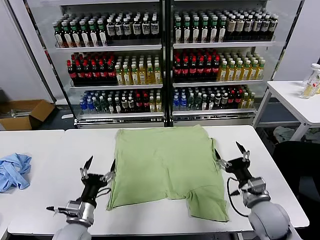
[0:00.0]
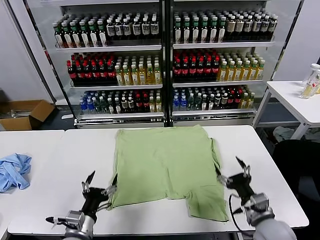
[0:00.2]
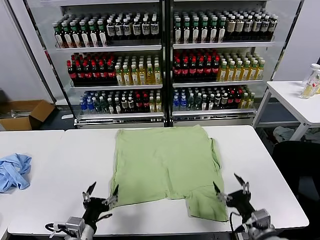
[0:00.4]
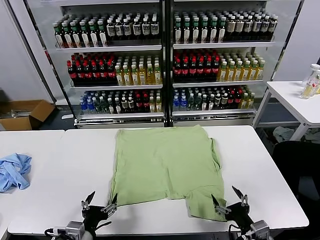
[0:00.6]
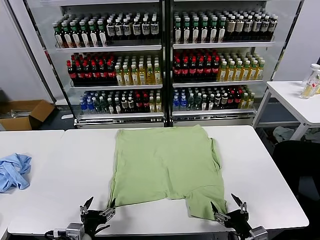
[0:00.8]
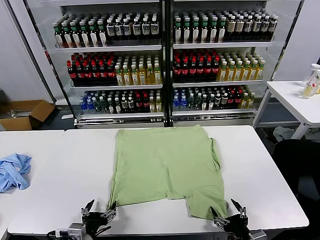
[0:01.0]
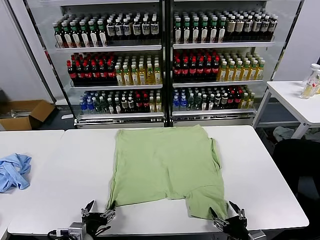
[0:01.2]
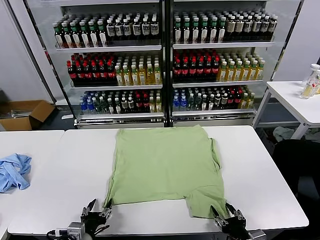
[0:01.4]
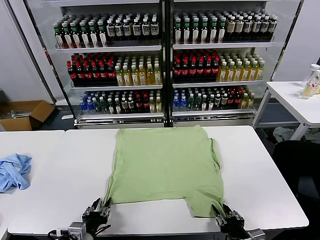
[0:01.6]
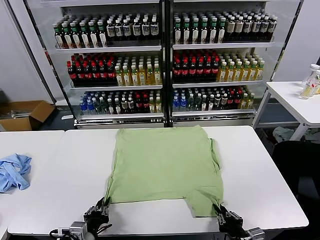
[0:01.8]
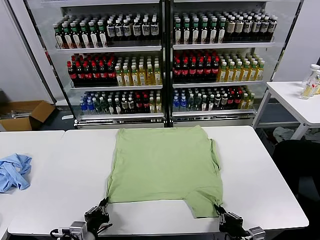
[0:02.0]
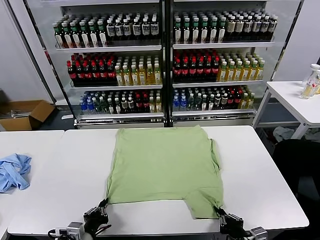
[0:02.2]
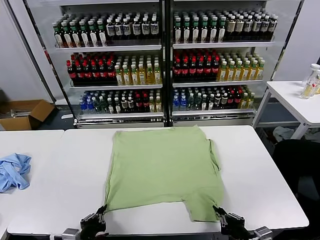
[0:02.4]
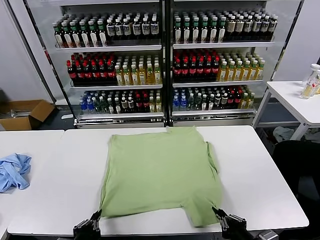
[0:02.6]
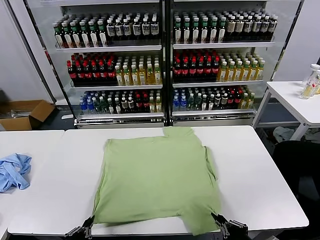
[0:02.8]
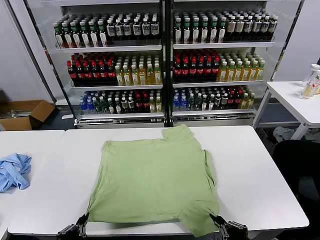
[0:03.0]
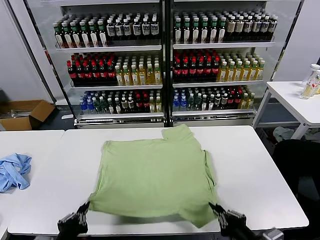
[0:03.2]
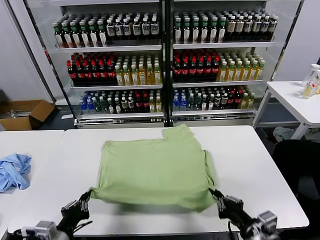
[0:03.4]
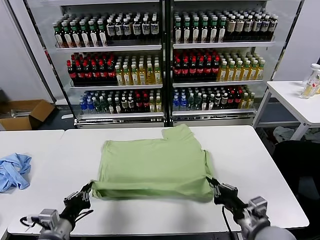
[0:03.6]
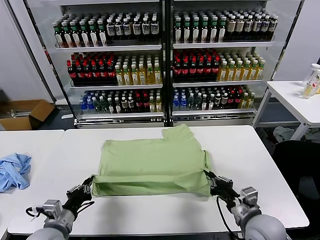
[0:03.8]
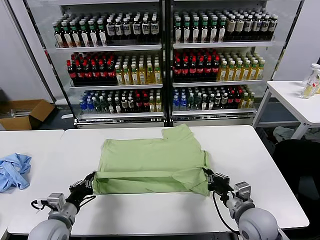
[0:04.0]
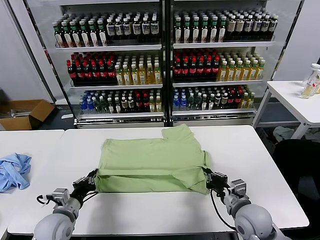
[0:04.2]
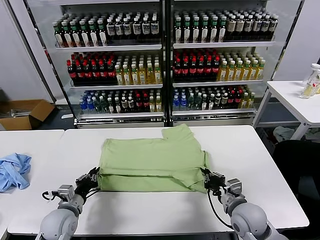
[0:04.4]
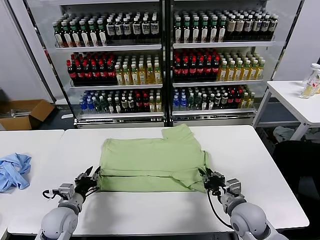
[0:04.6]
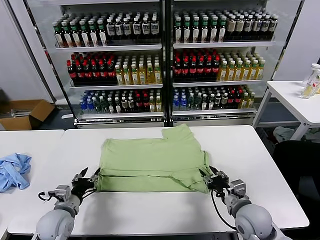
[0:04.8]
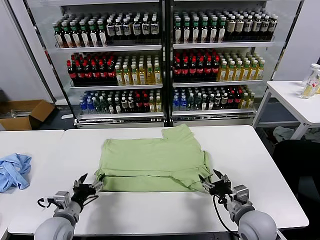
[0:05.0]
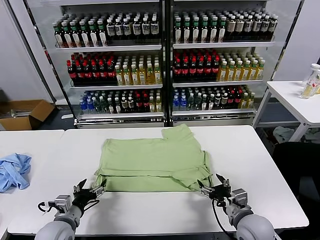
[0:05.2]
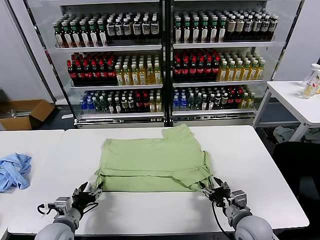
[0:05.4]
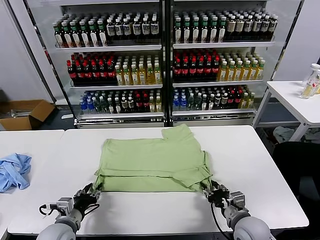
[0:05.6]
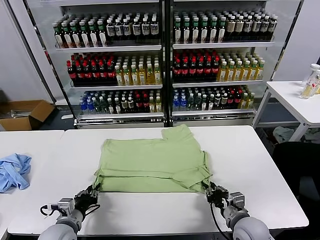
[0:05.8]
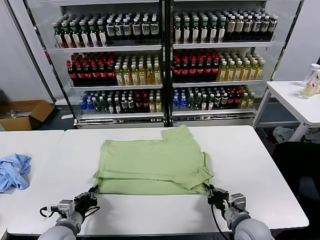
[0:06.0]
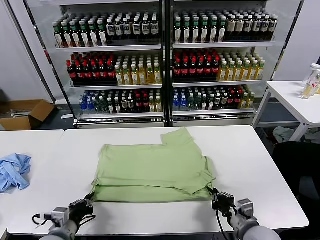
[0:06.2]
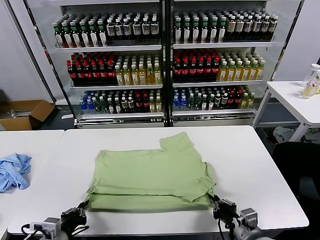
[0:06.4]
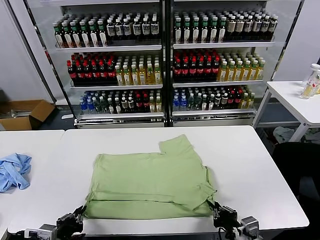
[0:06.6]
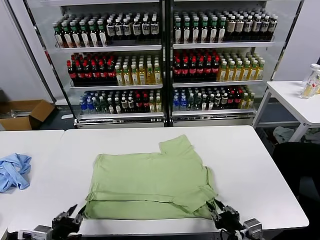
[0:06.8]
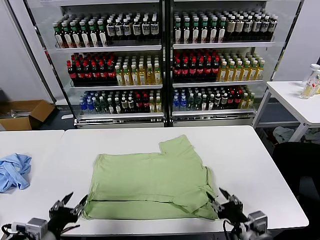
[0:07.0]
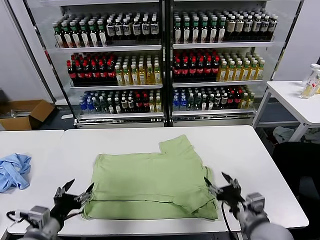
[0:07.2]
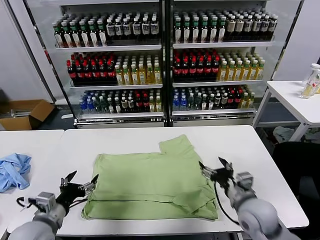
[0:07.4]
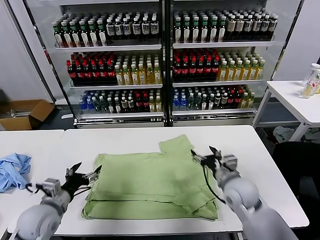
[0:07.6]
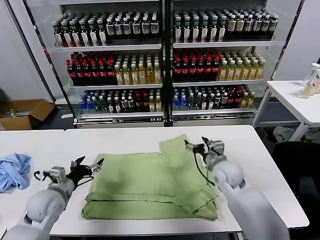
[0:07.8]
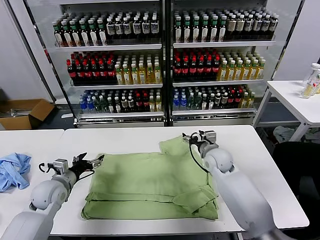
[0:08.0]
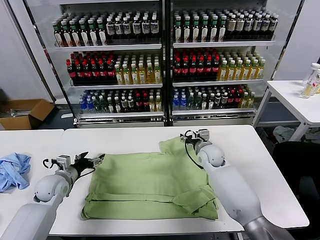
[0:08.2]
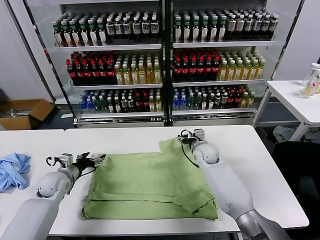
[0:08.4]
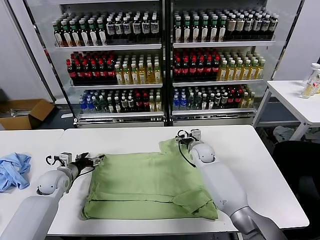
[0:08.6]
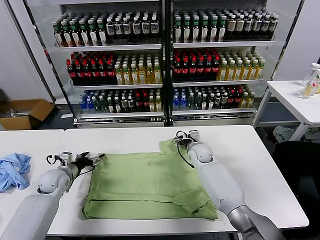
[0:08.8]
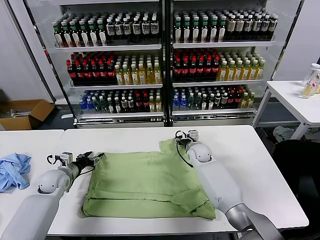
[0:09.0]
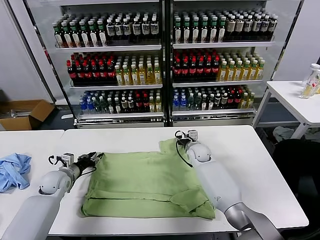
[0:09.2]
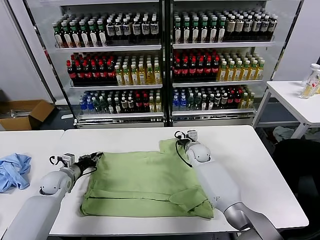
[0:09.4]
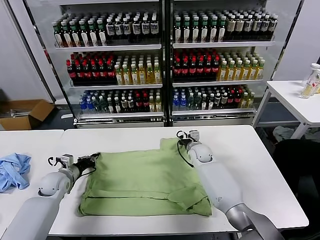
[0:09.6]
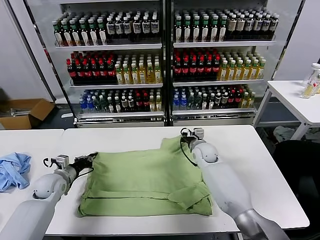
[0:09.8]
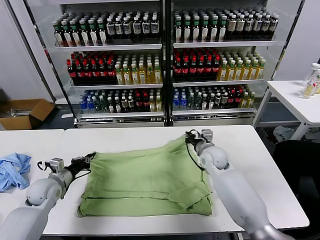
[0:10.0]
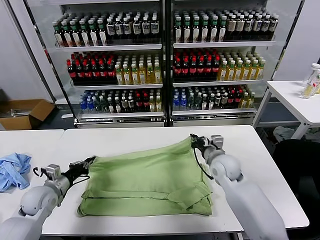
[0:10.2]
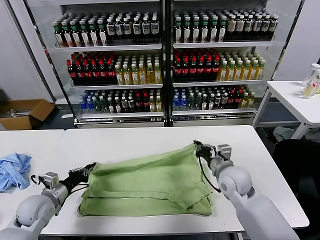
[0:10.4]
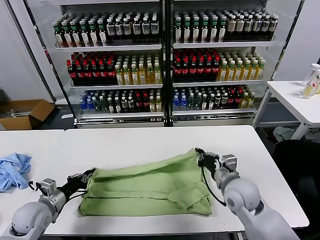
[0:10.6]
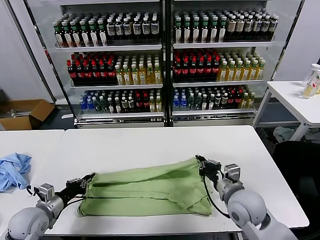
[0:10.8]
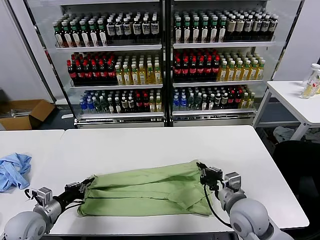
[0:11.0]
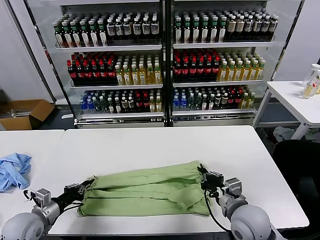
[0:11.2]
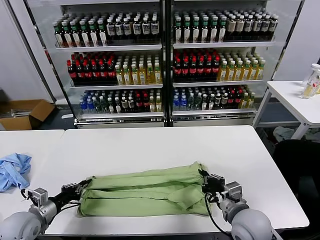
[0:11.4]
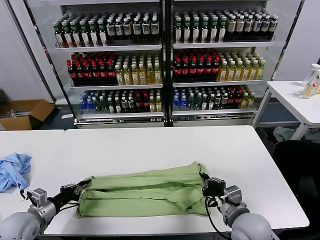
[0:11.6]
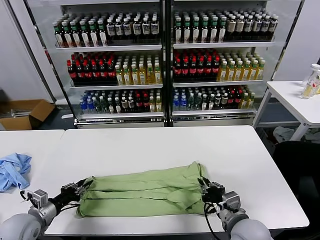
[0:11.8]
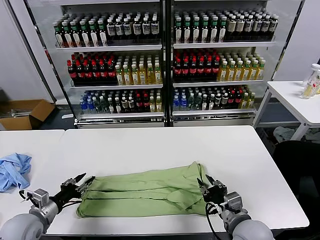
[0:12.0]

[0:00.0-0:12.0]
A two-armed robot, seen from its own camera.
Task of the whole recording: fold and organize the clothes.
Step, 0:00.0 to 0:02.6: use both grippers simultaneously to clamp the lower edge of the clothing fabric.
Step, 0:02.8 to 0:04.8: use both grippers to drag the lower edge of the fabric forward and fold it over the upper edge.
Step, 0:05.0 to 0:06.8: Drag the clothes downward with both gripper.
Step, 0:07.0 to 0:09.6: use both grippers simultaneously to clamp the upper edge of the clothing fabric.
0:01.6 to 0:03.0: The left gripper moves upward and backward, approximately 10 cm, and closes. Meanwhile the right gripper heads upward, covering roughly 10 cm.
0:03.0 to 0:04.4: Both grippers move forward and downward, approximately 20 cm.
0:04.4 to 0:06.0: Both grippers move backward, approximately 5 cm. The left gripper opens and closes again; the right gripper opens, then closes again.
0:06.0 to 0:07.6: The left gripper is displaced forward and upward by approximately 10 cm, and opens up, while the right gripper travels forward by roughly 15 cm, and opens up.
0:07.6 to 0:09.0: Both grippers move forward, downward and to the left, roughly 20 cm.
0:09.0 to 0:10.4: The left gripper heads backward, covering approximately 10 cm, and closes up; the right gripper is displaced backward, upward and to the right by roughly 25 cm, and closes its fingers.
0:10.4 to 0:12.0: The right gripper heads backward, covering roughly 15 cm, and opens its fingers. Meanwhile the left gripper is displaced backward by about 5 cm, and opens its fingers.

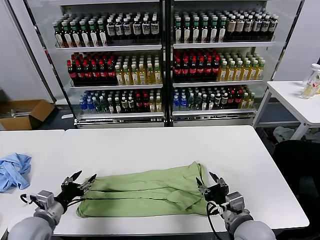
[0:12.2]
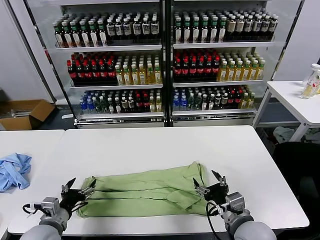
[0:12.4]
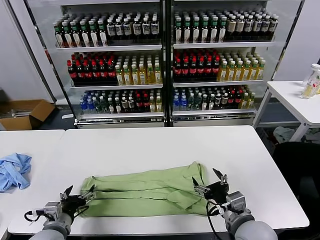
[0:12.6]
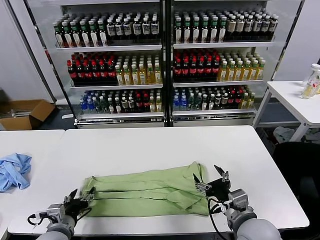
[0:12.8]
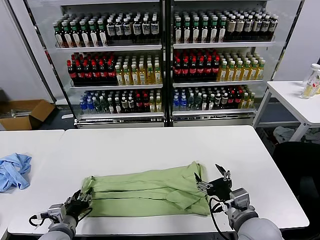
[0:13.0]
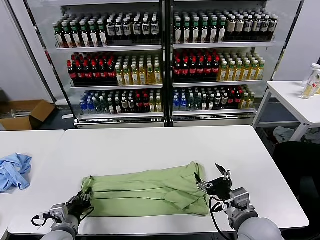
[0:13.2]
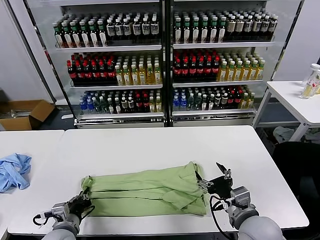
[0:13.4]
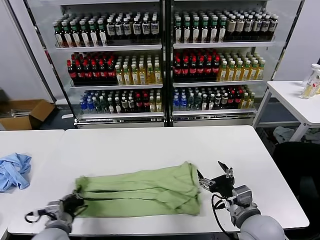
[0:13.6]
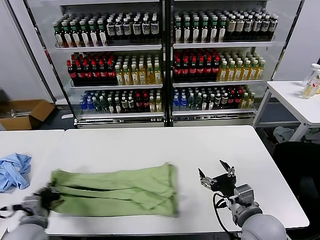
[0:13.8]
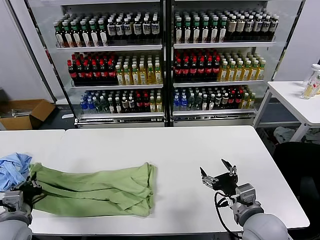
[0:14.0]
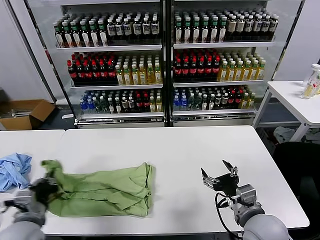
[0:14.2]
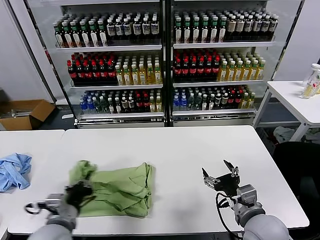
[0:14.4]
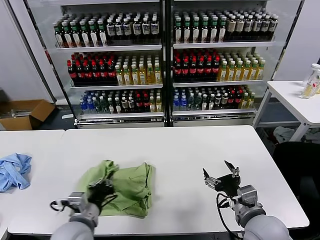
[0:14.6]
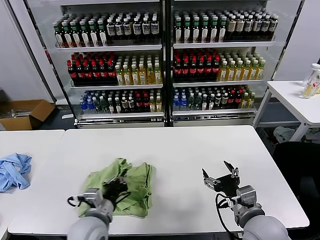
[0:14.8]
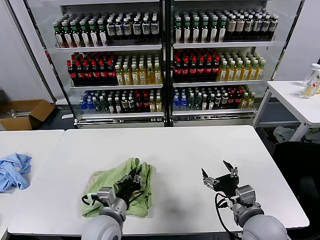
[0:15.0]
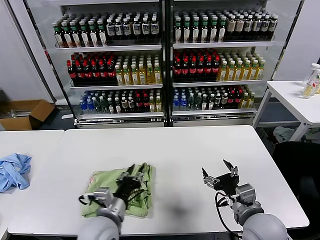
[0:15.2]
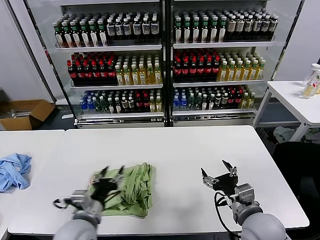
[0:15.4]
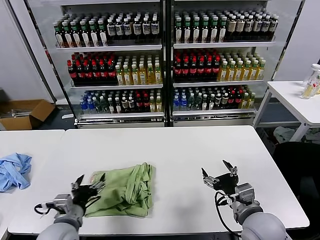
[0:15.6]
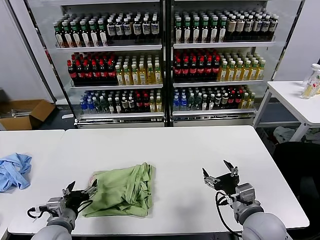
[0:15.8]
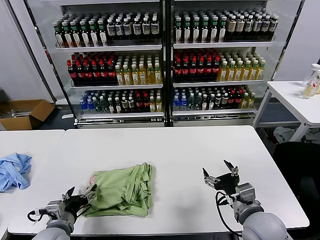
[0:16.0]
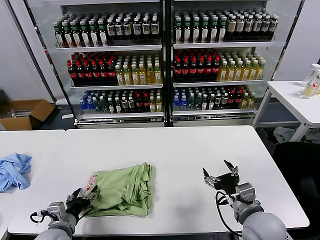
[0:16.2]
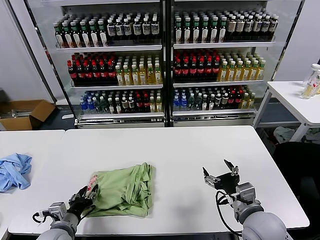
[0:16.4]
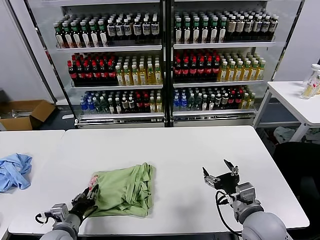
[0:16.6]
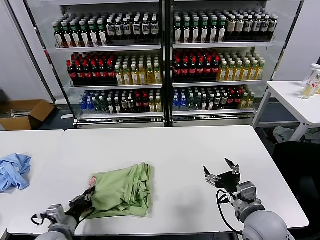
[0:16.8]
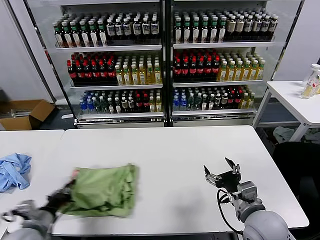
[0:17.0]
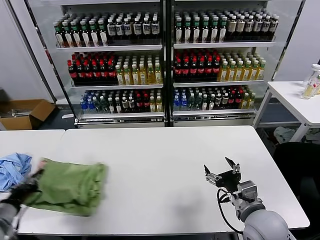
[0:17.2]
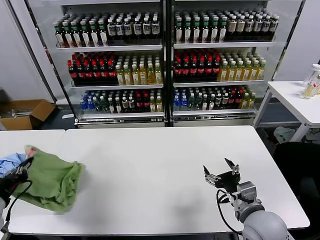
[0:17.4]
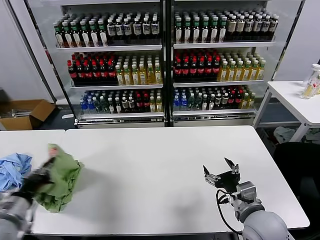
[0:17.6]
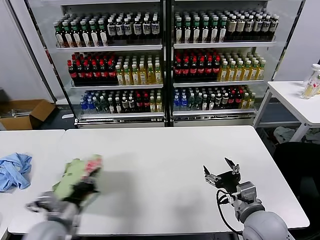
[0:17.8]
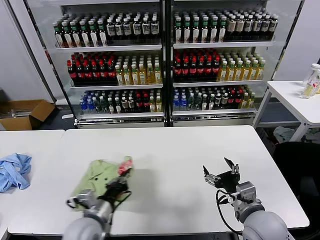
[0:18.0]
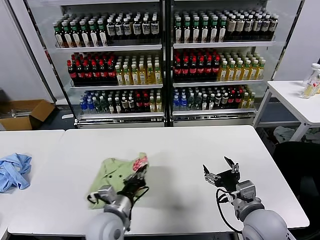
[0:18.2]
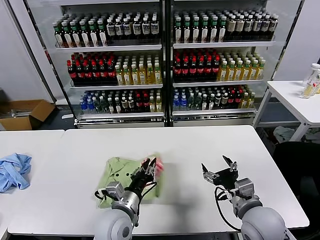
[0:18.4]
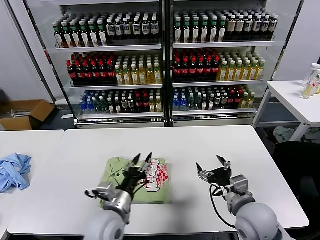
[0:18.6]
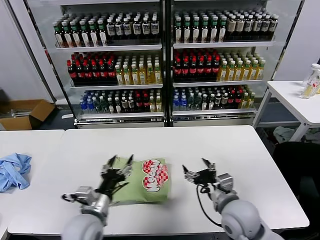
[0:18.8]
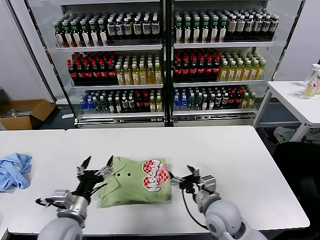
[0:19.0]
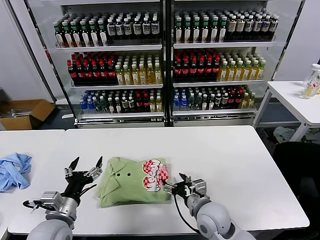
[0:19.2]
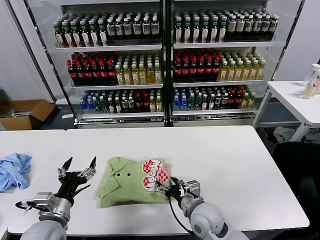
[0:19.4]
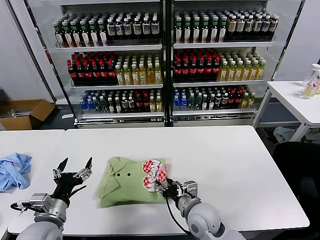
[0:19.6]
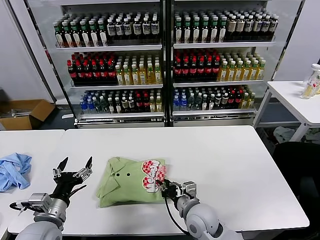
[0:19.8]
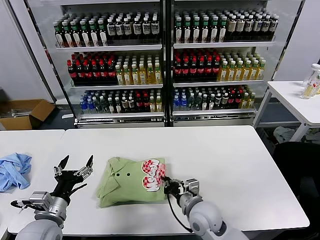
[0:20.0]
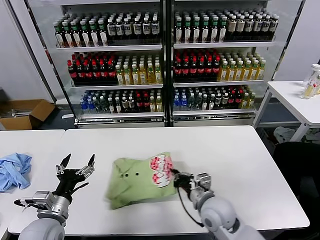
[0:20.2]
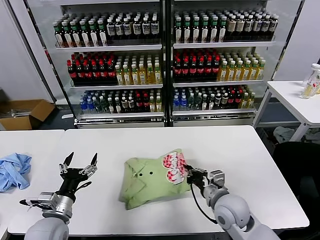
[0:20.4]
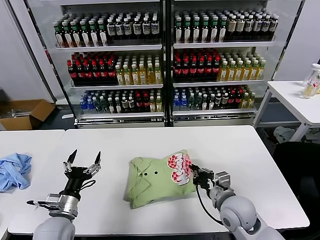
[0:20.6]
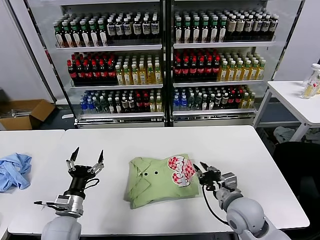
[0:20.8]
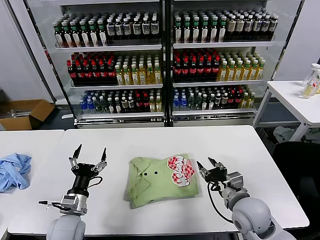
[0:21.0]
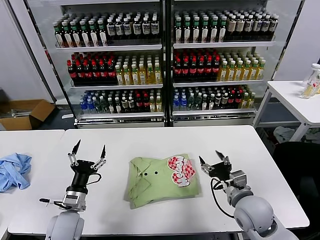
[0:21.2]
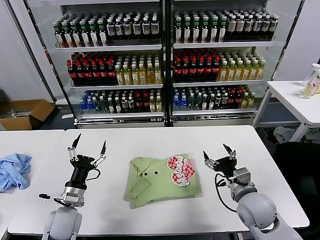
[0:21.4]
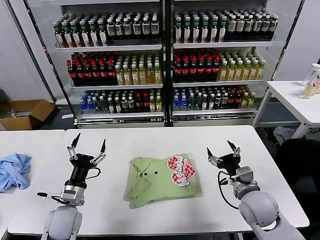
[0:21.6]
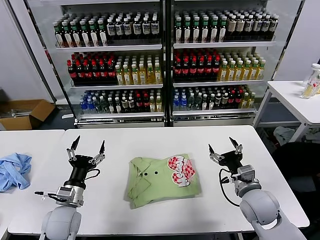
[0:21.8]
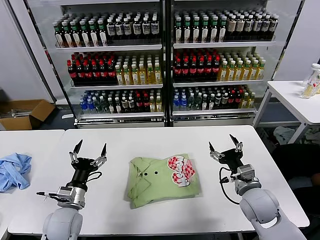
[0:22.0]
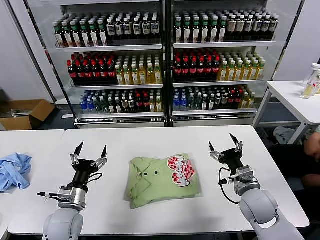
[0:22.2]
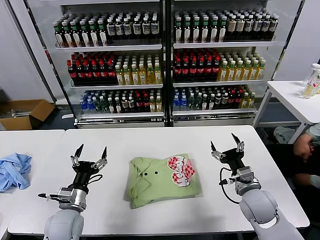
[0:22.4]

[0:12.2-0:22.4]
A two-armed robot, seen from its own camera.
Task of the whole recording: fold and organize the clothes.
Step, 0:12.2 to 0:13.2: use the left gripper to clamp the left edge of the fabric.
Step, 0:13.4 to 0:15.2: use the left gripper to drag the left edge of the fabric to the left and folds it over the right edge.
Step, 0:15.4 to 0:18.4: Flip the folded clothes over with left gripper.
Step, 0:18.6 to 0:20.8: Drag the clothes to the center of the table.
0:12.2 to 0:13.6: The left gripper goes some 5 cm to the right, and closes its fingers.
0:13.6 to 0:15.2: The left gripper travels to the right by roughly 15 cm, and opens its fingers.
0:15.2 to 0:16.6: The left gripper travels to the left and downward by approximately 20 cm, and opens, then closes again.
0:16.6 to 0:18.0: The left gripper shifts about 10 cm to the right and upward.
0:18.0 to 0:19.4: The left gripper is displaced to the left by some 10 cm, and opens its fingers. Meanwhile the right gripper heads to the left, downward and forward, covering about 15 cm.
0:19.4 to 0:21.0: The left gripper is displaced downward by roughly 5 cm, while the right gripper is displaced to the right and upward by roughly 10 cm, and closes, then opens again.
0:21.0 to 0:22.4: The right gripper shifts by approximately 5 cm, and opens its fingers.
